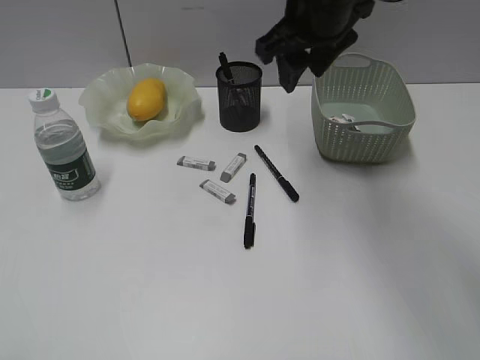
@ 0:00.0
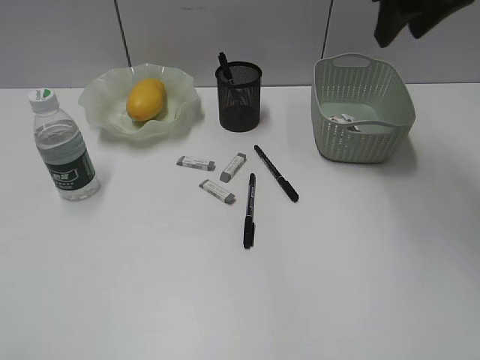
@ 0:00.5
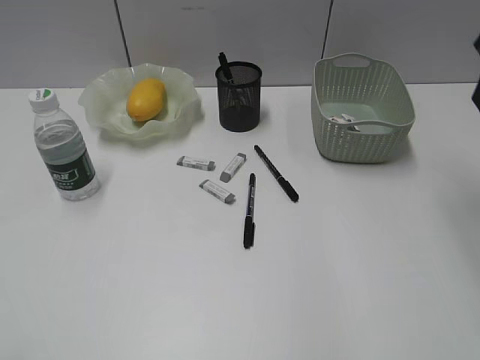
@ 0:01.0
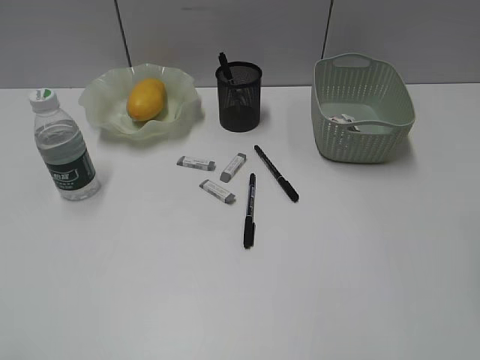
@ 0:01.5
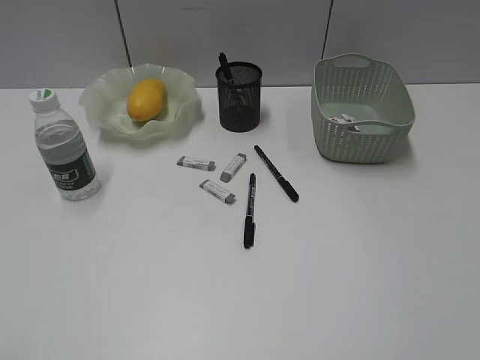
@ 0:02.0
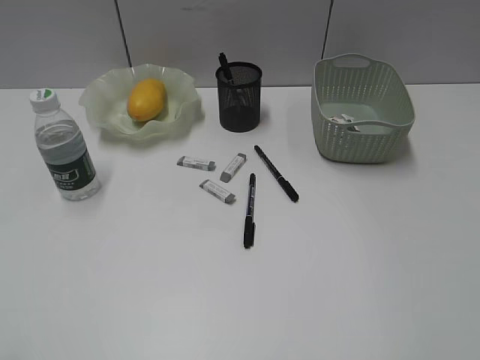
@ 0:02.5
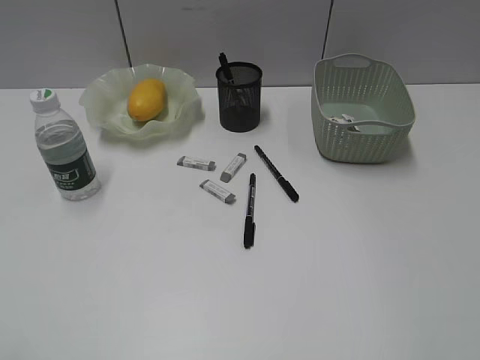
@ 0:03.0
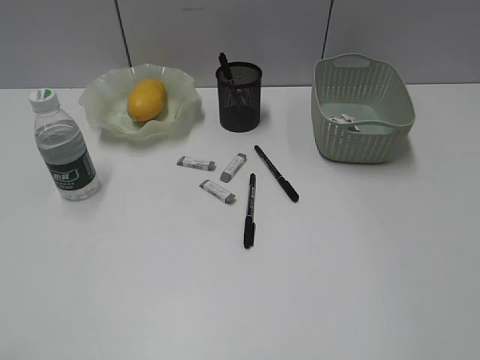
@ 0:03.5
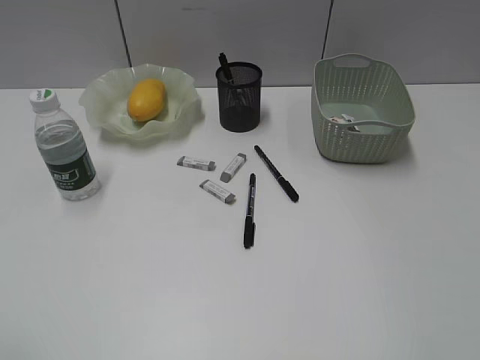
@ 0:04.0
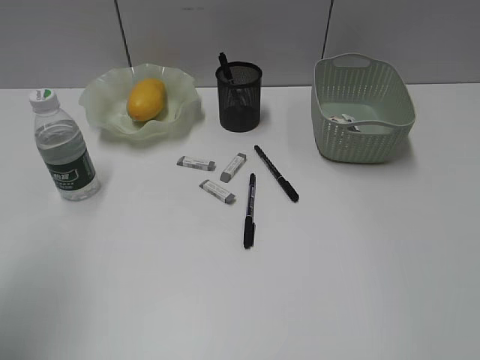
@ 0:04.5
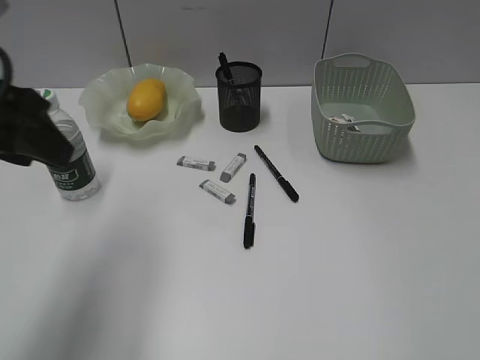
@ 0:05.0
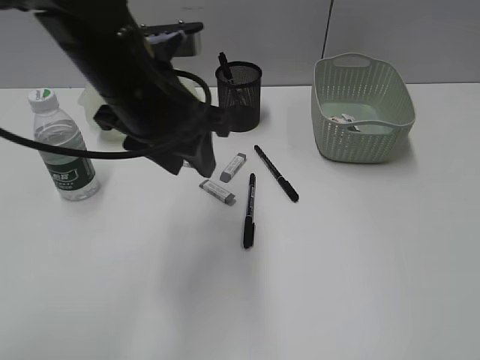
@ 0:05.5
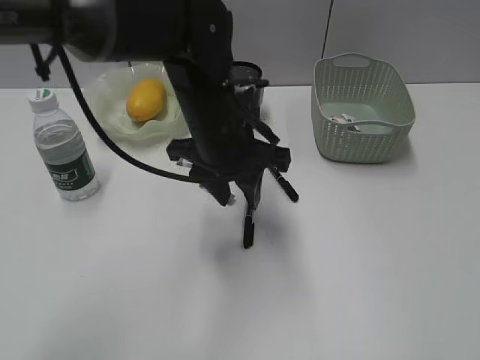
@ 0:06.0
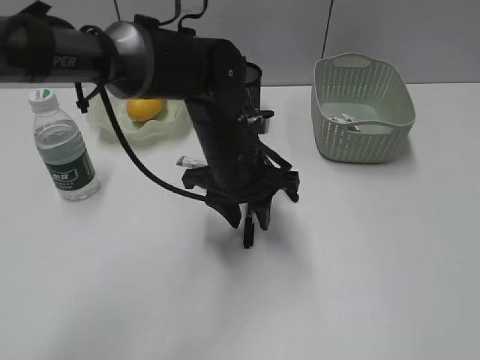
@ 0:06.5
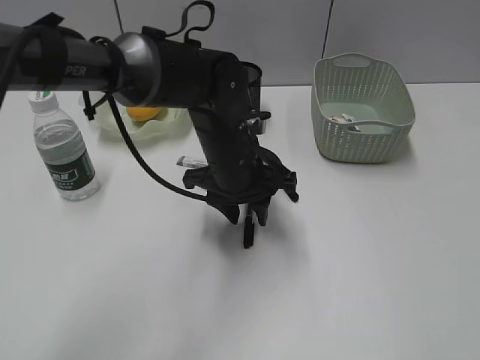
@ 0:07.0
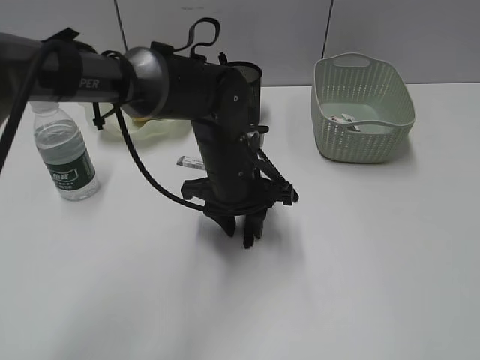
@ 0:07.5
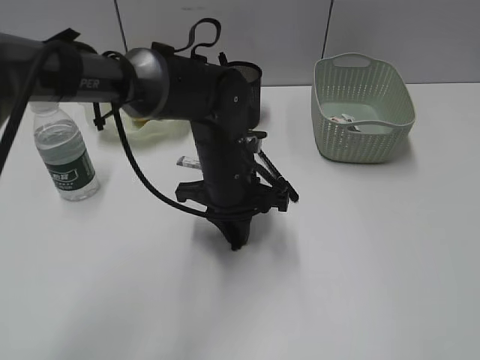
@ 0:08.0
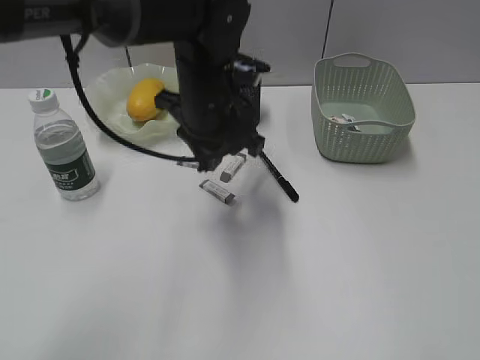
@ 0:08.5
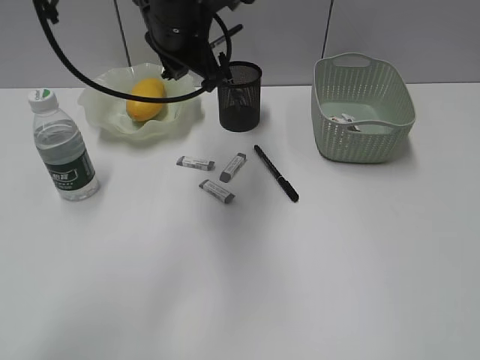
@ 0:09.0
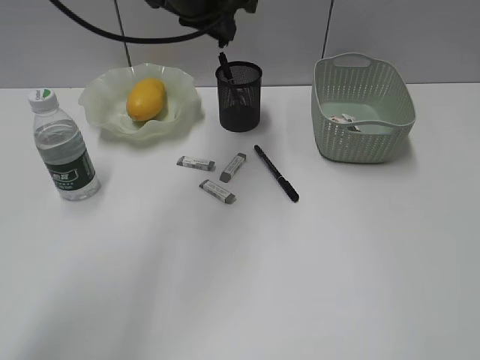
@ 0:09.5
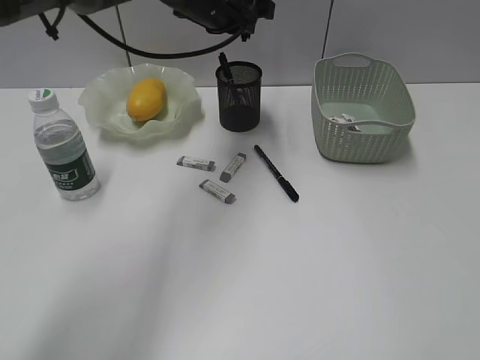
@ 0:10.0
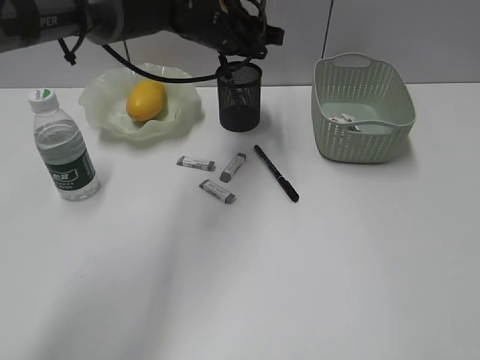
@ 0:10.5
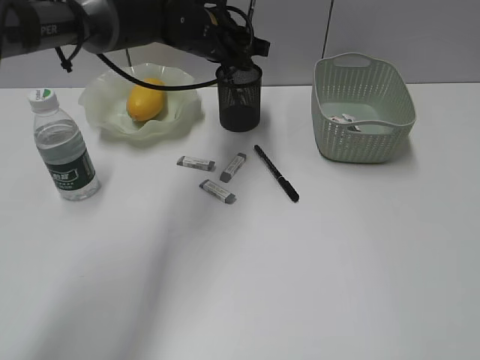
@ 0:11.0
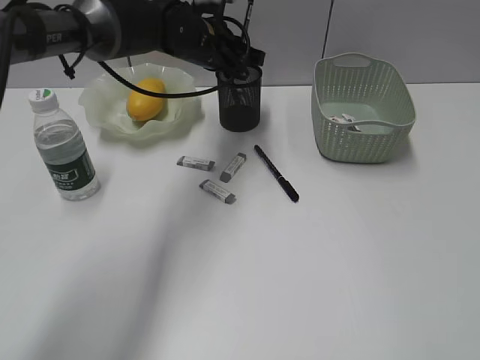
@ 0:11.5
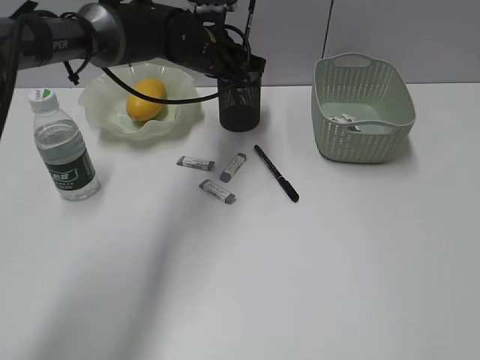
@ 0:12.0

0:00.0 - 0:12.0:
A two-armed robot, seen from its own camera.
Step, 0:00.0 - 0:07.5: Grasp the black pen with left gripper.
0:00.0 - 0:02.0: The right gripper travels backward and to the right by about 35 cm.
0:04.0 - 0:06.0: The left gripper goes approximately 40 cm forward and to the right.
0:06.0 - 0:08.0: The left gripper travels downward by some 5 cm, and closes up.
0:08.0 - 0:10.0: The left gripper shifts roughly 20 cm upward and forward.
0:10.0 - 0:12.0: The left gripper heads downward, covering some 5 cm.

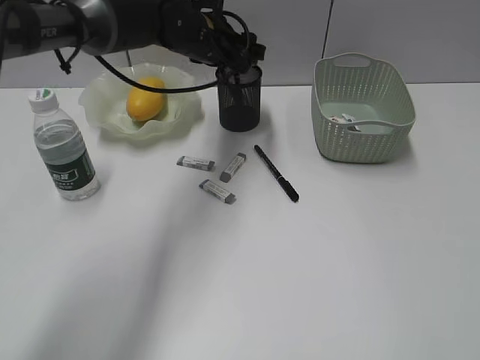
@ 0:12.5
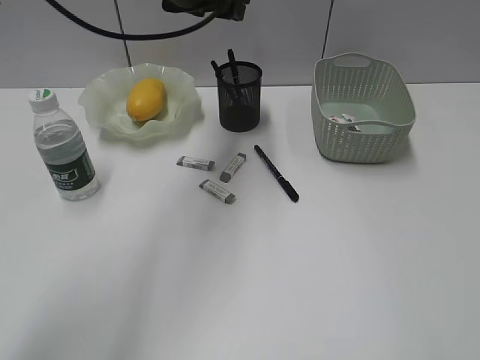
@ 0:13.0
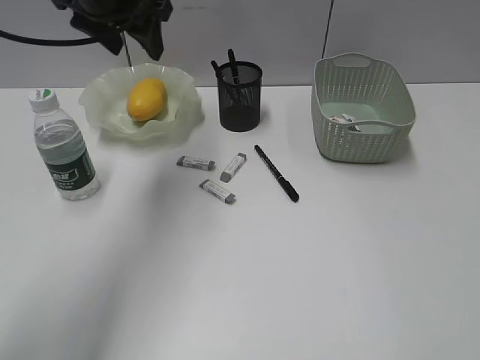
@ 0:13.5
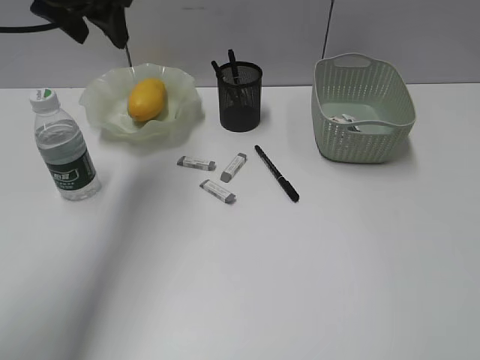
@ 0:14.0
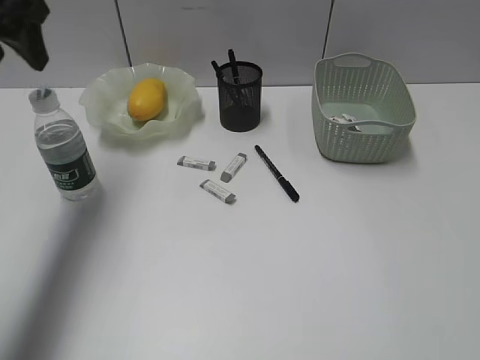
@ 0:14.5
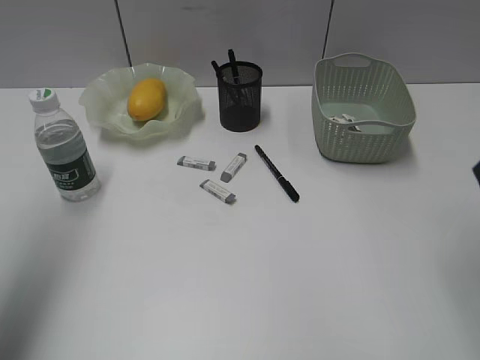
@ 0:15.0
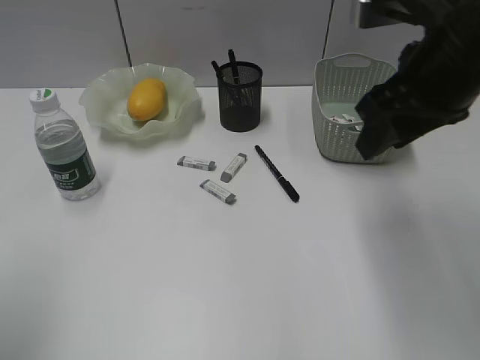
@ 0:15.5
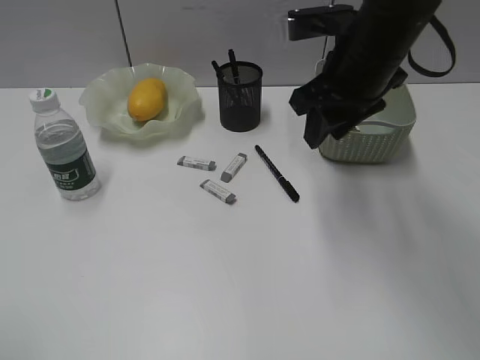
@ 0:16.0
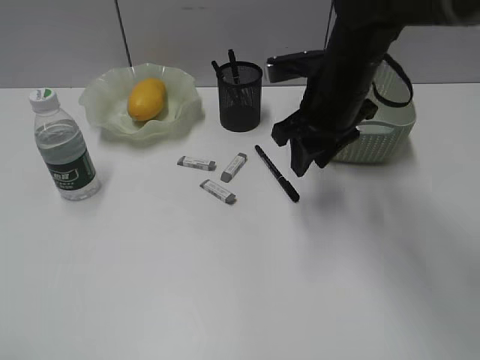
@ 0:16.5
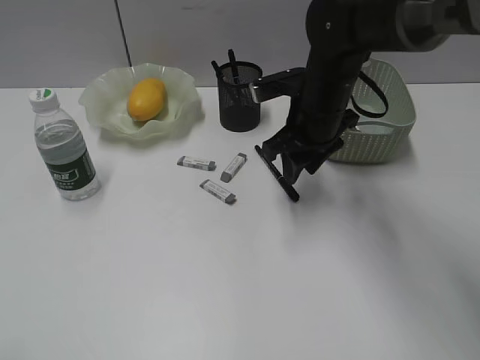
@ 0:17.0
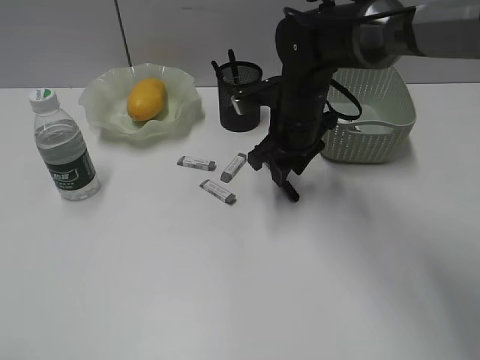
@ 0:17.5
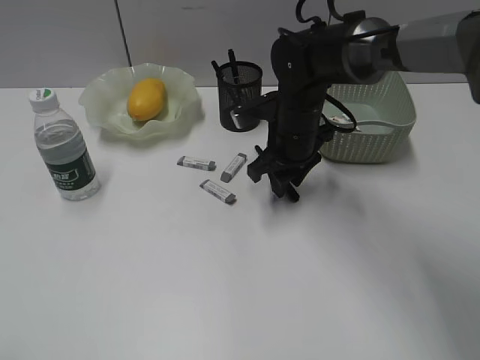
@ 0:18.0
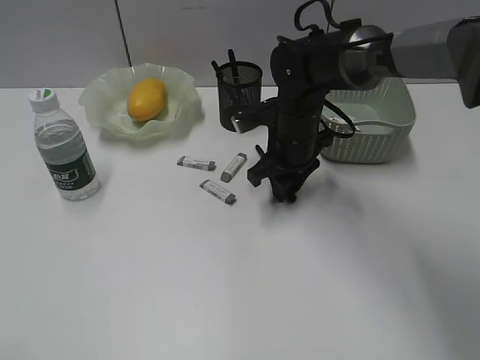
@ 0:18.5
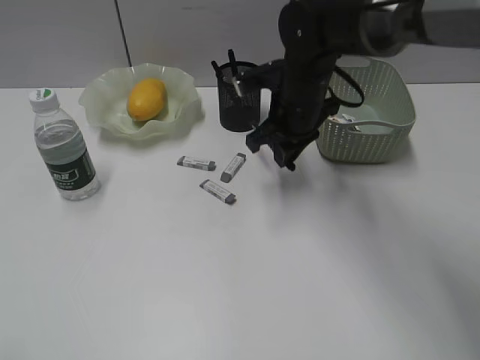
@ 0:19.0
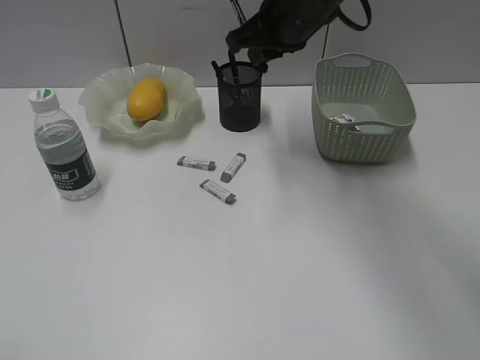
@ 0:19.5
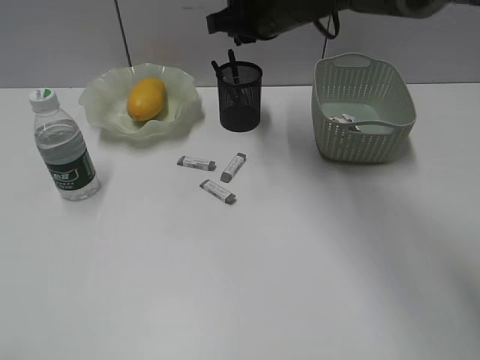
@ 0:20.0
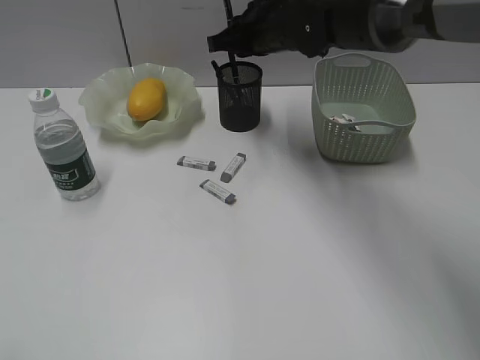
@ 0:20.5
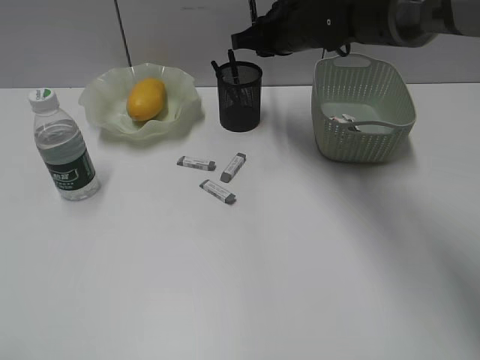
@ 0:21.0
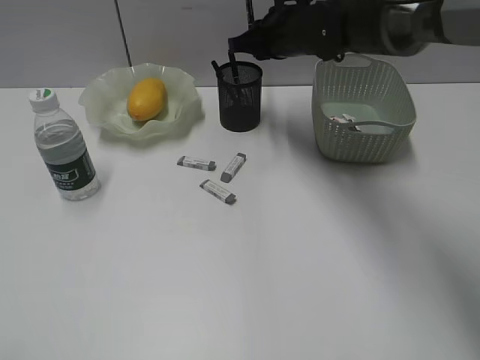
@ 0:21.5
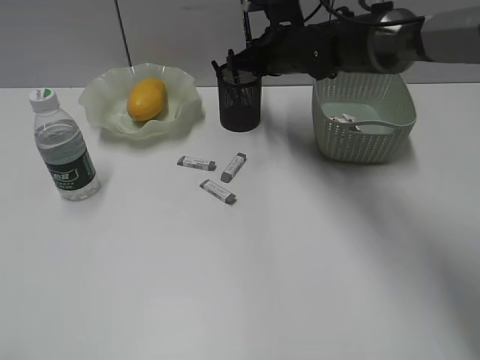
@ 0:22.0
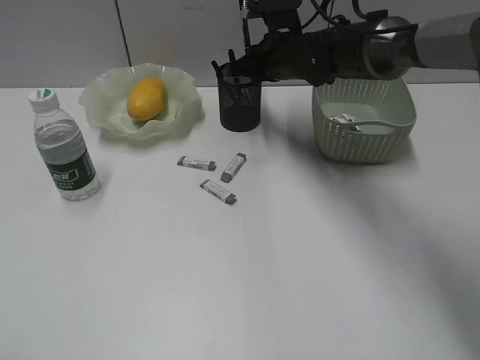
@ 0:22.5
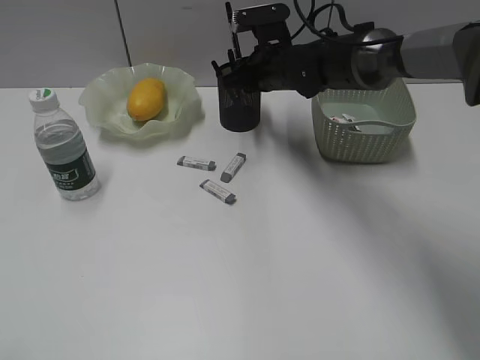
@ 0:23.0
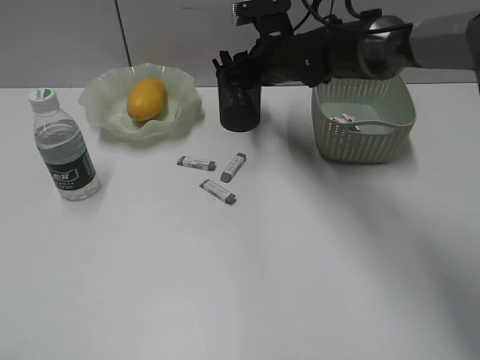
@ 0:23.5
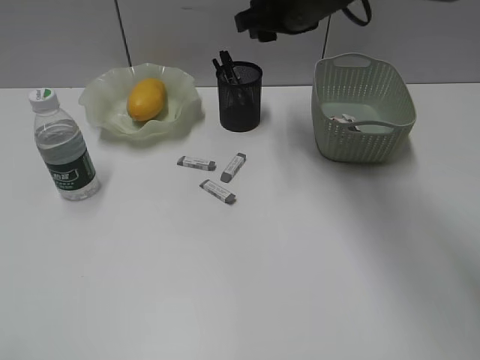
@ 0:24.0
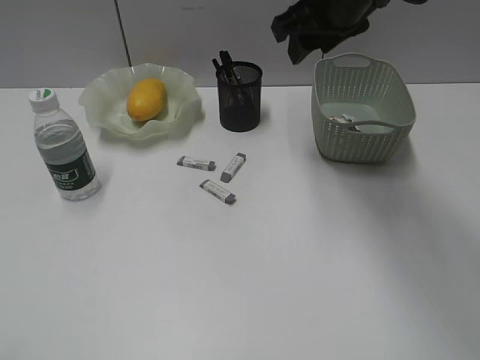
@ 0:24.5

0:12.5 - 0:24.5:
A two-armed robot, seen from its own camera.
Step, 0:13.0 - 0:18.5: Grasp the black pen with right gripper.
Step, 0:19.0 - 0:23.0: Place the black pen in pen holder with right gripper.
0:12.5 - 0:14.5: The left gripper moves to the left, upward and backward, some 25 cm; the right gripper travels forward by approximately 10 cm.
0:14.5 - 0:16.5: The left gripper travels backward by approximately 35 cm. The right gripper shifts about 35 cm forward, to the left and downward.
0:16.5 - 0:18.5: The right gripper goes some 10 cm downward.
0:18.5 - 0:20.5: The right gripper moves upward and forward, roughly 15 cm.
0:20.5 - 0:22.5: The right gripper moves downward, roughly 5 cm.
0:22.5 - 0:24.5: The right gripper moves upward and backward, some 15 cm, and opens up.

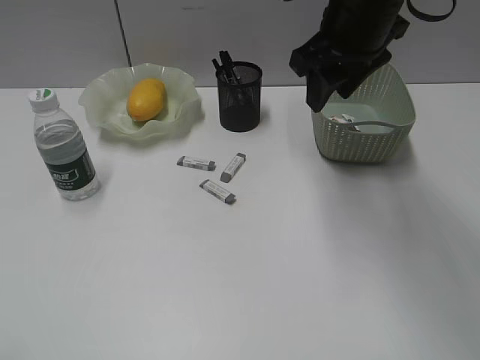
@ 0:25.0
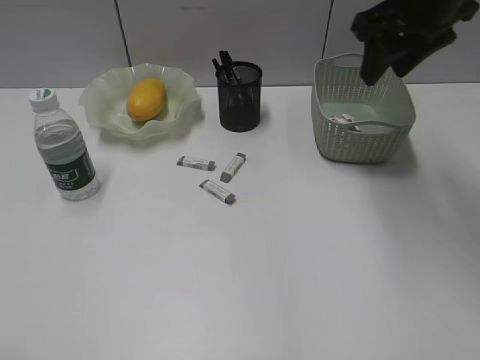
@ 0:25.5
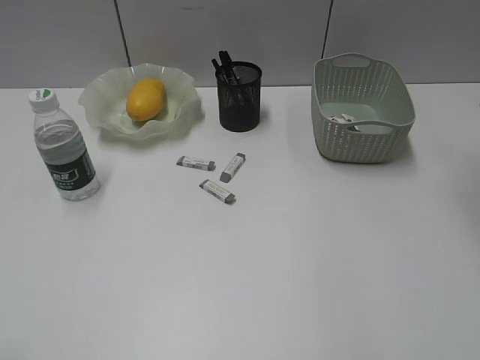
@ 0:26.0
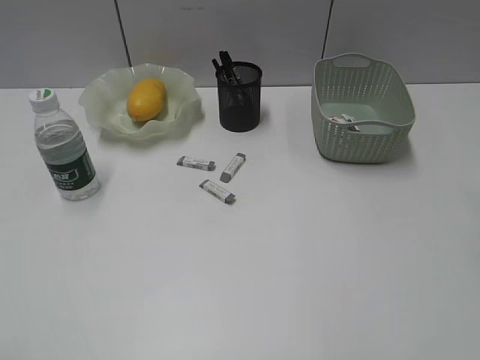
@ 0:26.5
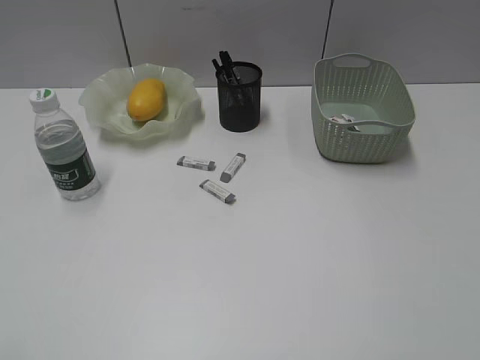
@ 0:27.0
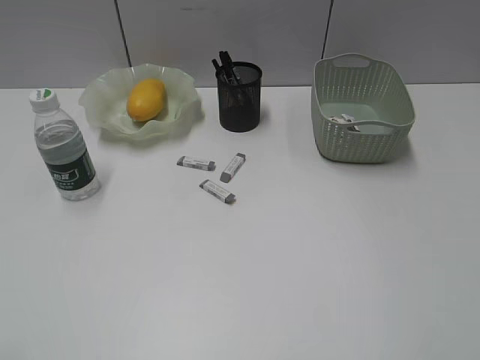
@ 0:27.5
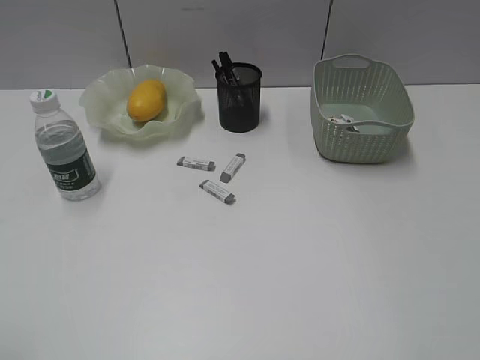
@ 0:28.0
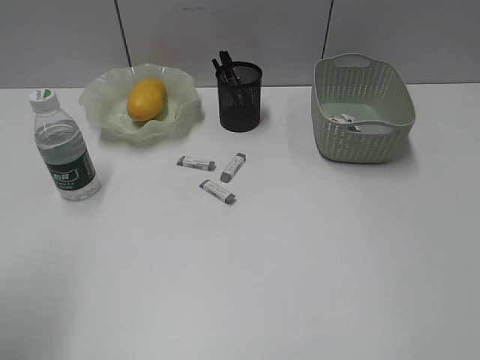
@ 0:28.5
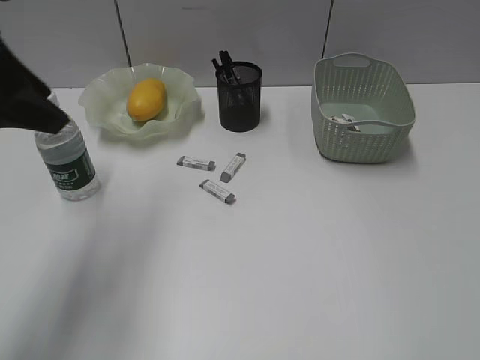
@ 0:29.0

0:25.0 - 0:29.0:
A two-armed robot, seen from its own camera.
0:25.0 - 0:27.0: The right gripper heads backward and to the right, covering approximately 30 cm.
0:27.0 - 0:29.0: The left gripper heads forward, covering about 25 cm.
